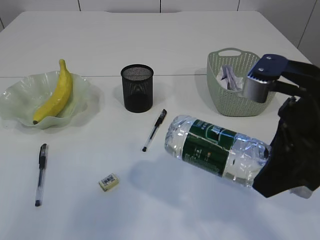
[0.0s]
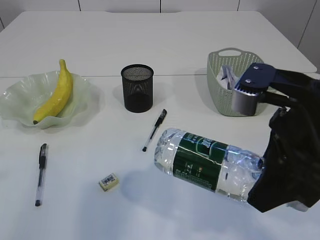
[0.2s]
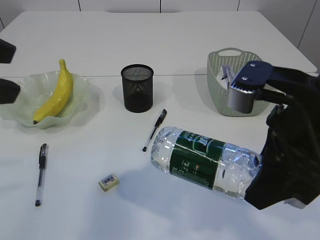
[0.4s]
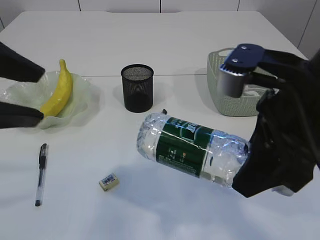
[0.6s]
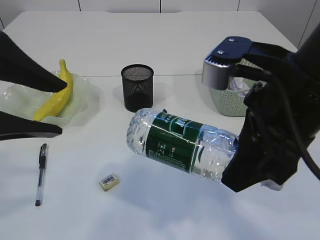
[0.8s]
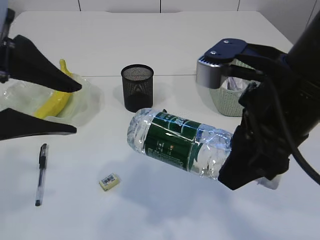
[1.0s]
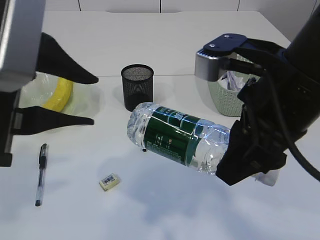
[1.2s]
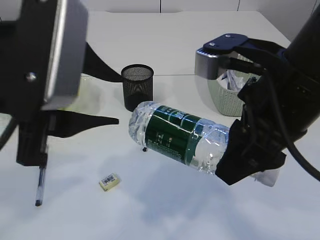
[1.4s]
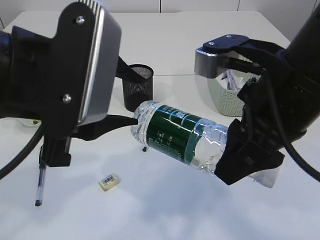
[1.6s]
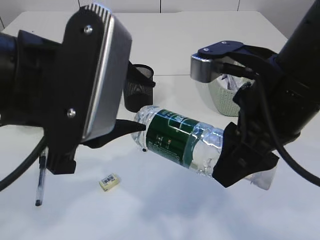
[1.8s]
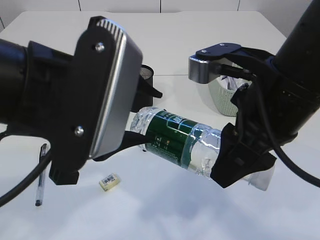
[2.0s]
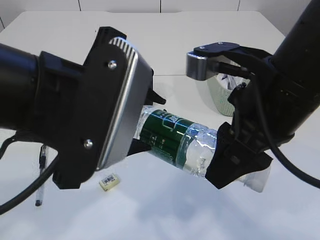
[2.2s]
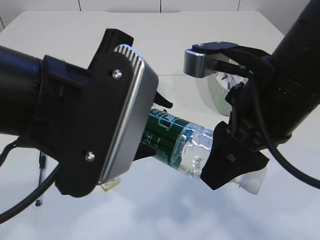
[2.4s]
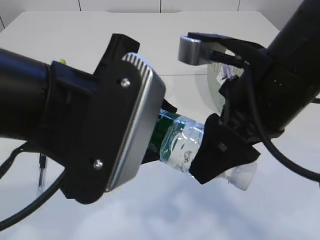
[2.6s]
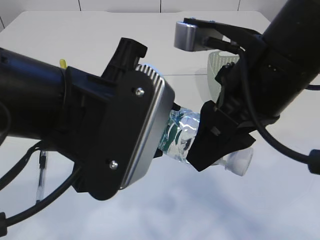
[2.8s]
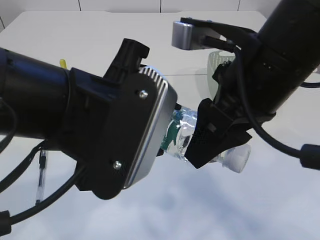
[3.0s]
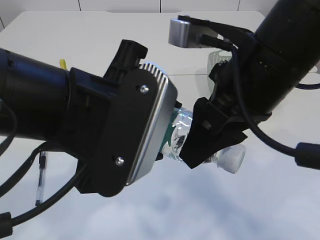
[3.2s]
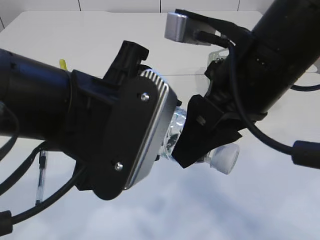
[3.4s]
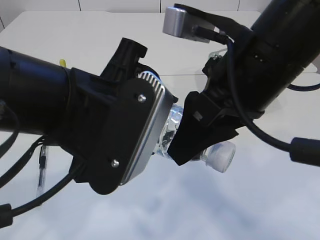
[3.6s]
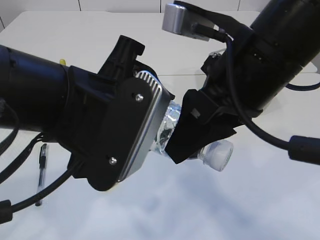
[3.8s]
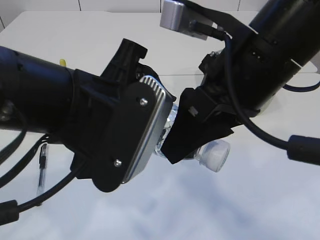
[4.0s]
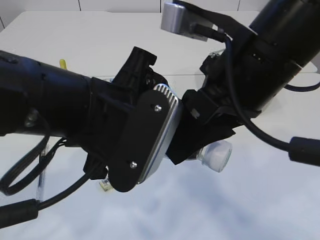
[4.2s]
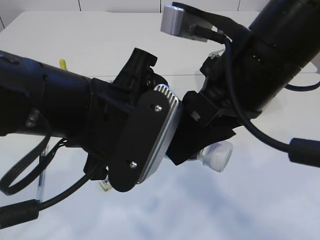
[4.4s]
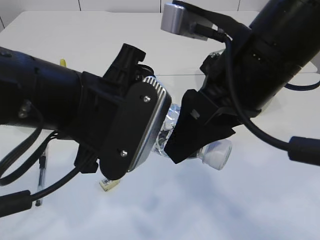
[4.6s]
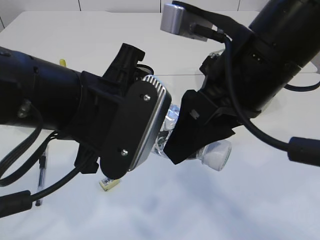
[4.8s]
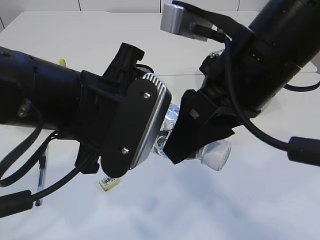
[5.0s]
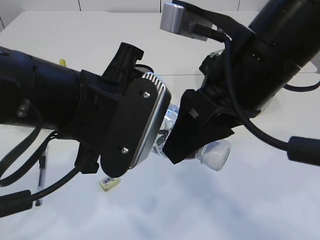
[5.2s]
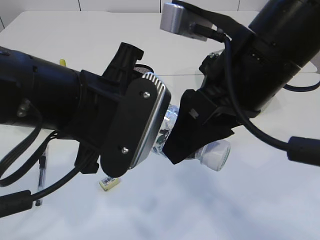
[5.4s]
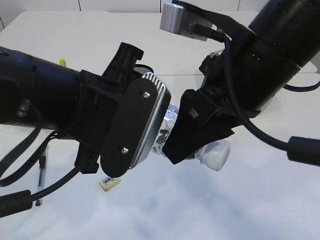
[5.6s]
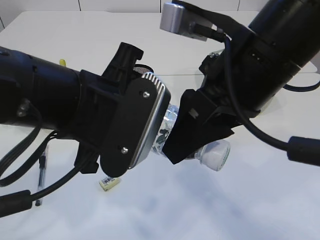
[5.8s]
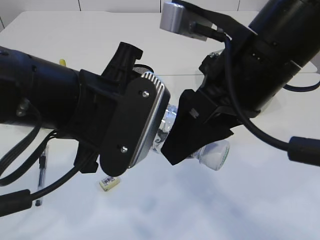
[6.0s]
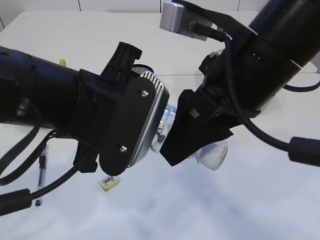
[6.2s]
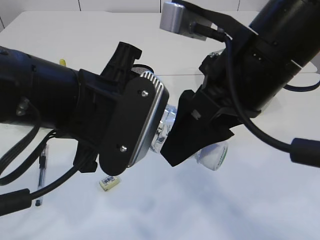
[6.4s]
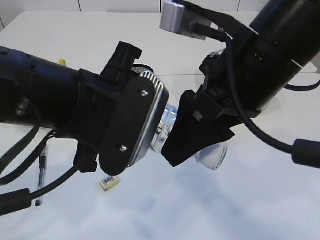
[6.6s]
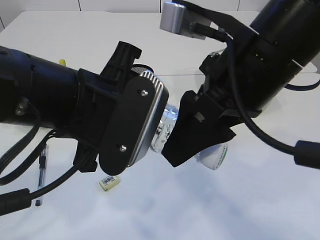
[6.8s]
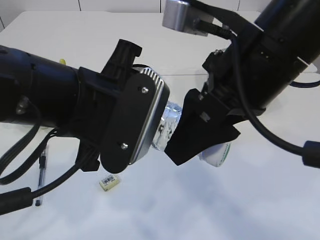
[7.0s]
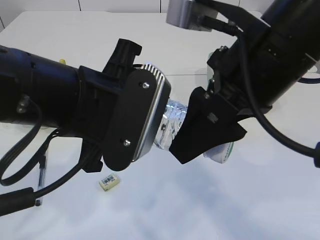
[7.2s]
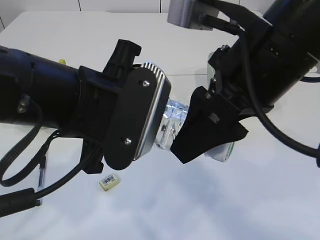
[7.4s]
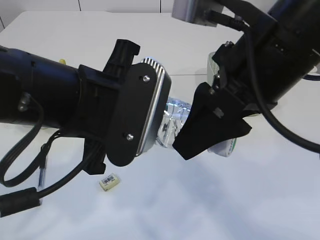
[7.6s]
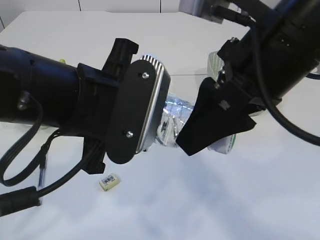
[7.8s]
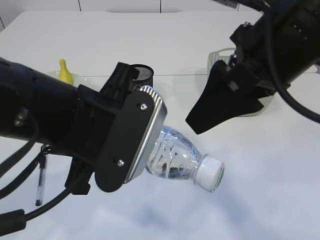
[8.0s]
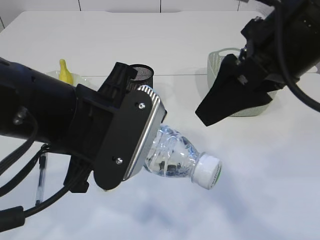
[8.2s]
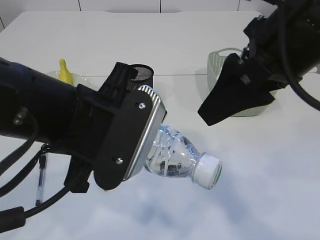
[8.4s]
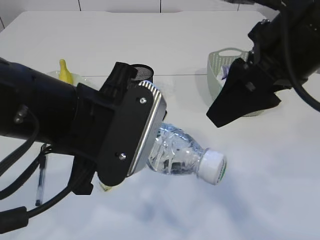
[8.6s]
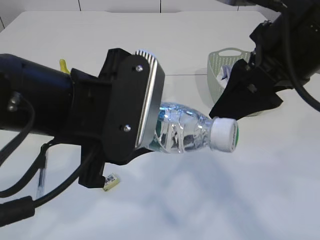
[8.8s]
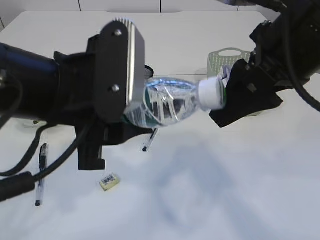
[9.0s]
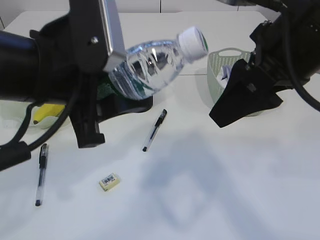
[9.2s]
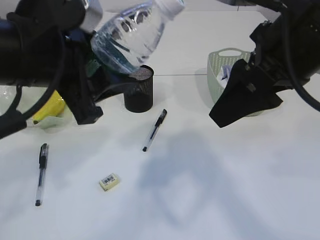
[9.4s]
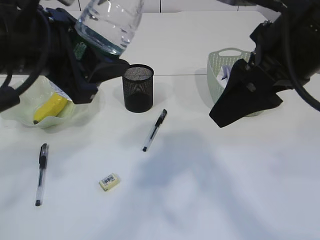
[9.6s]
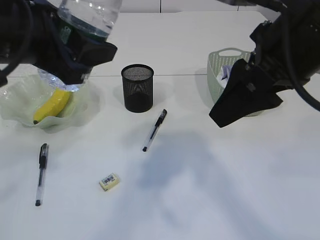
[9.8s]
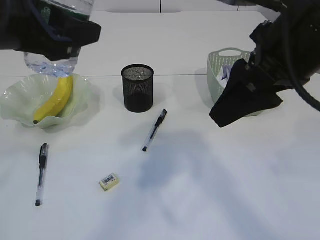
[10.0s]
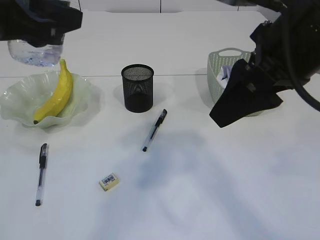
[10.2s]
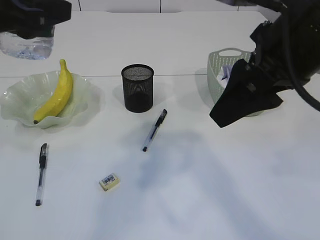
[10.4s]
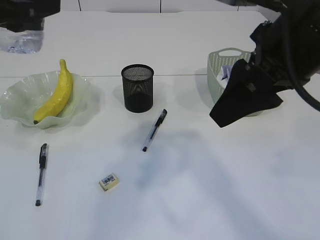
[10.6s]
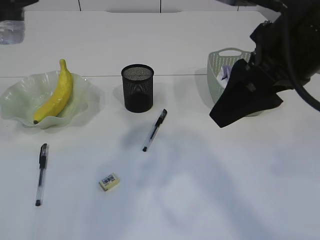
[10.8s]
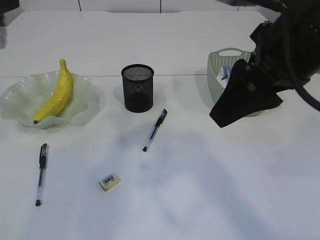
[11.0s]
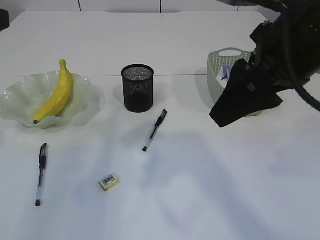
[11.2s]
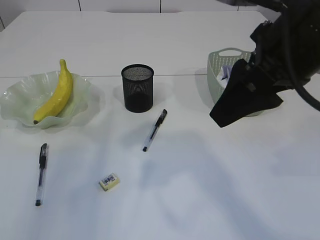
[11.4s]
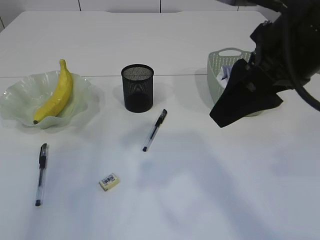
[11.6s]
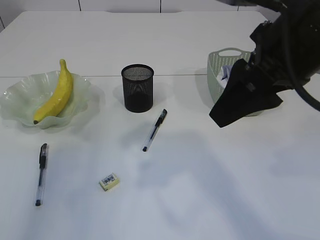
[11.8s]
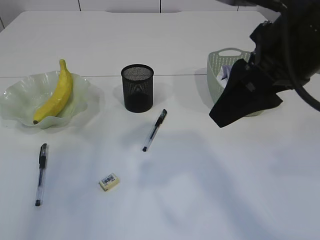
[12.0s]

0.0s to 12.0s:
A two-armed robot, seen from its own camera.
Step, 0.0s to 8.2s: transfer the bottle to the left arm.
0.0s to 1.6s: The left gripper shifts some 15 cm to the right and downward. Meanwhile the right gripper is displaced to the left by roughly 5 cm.
4.4s to 6.0s: Neither gripper changes place.
6.0s to 7.6s: The grippers stay close to where they were, moving slightly.
9.0s to 10.4s: The left gripper heads to the left and upward, covering approximately 15 cm.
10.4s to 12.0s: The left gripper moves to the left, some 10 cm.

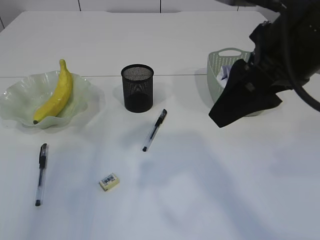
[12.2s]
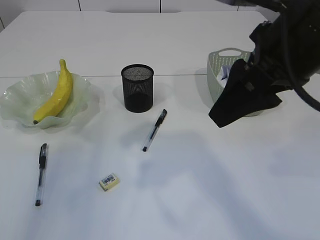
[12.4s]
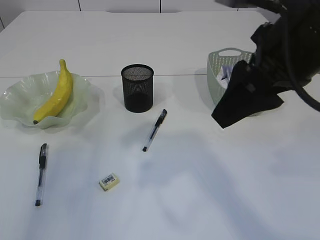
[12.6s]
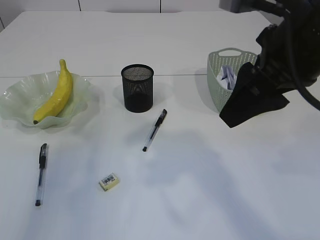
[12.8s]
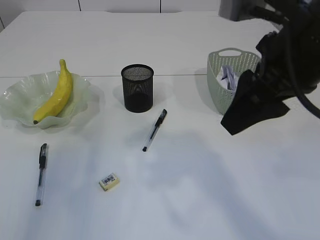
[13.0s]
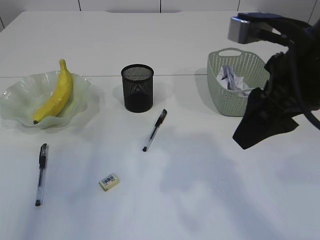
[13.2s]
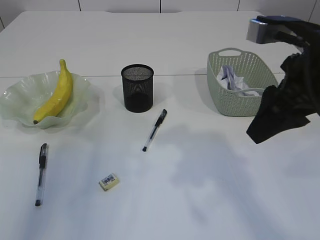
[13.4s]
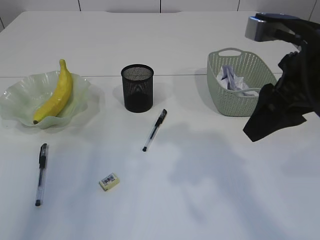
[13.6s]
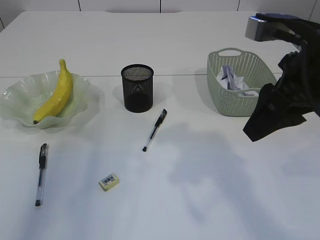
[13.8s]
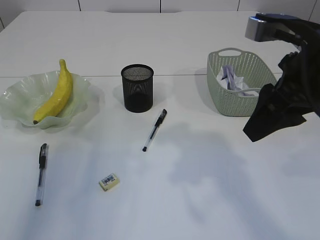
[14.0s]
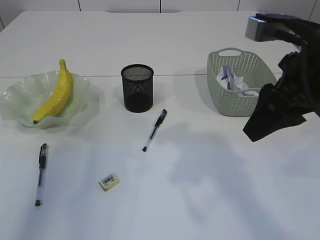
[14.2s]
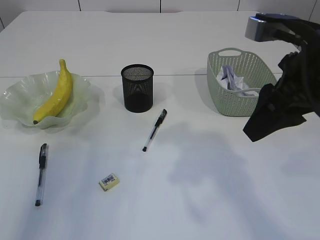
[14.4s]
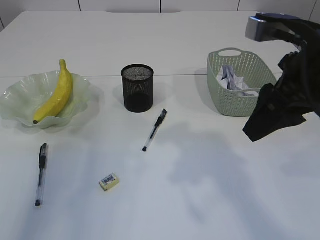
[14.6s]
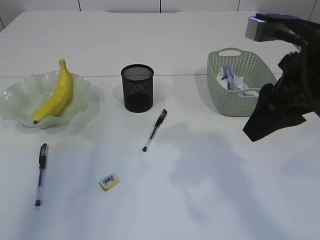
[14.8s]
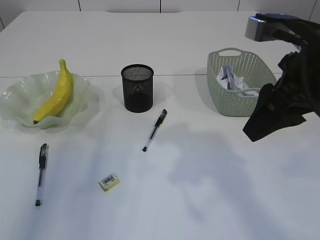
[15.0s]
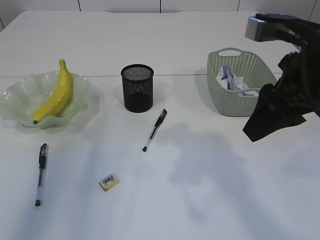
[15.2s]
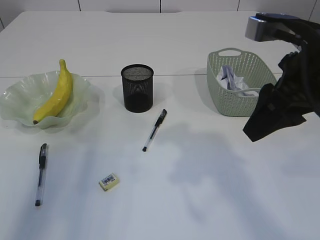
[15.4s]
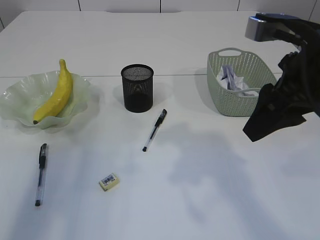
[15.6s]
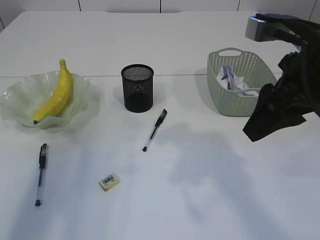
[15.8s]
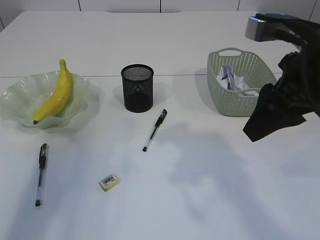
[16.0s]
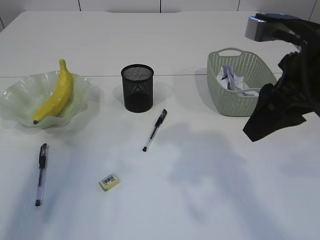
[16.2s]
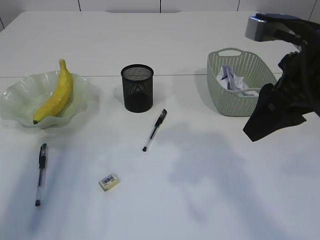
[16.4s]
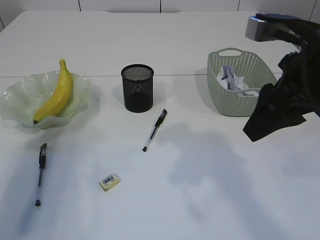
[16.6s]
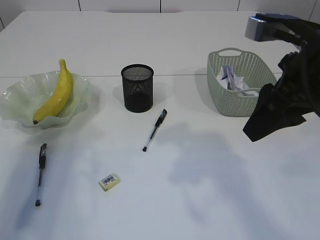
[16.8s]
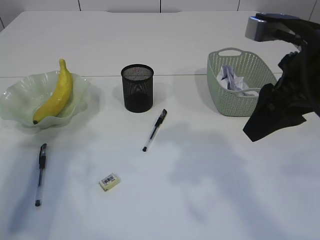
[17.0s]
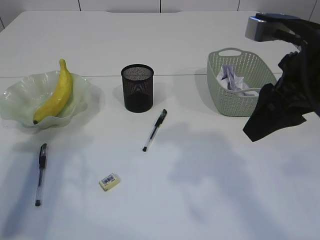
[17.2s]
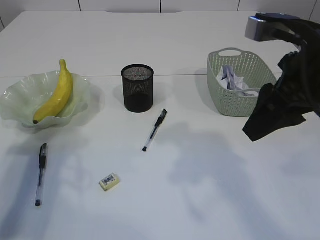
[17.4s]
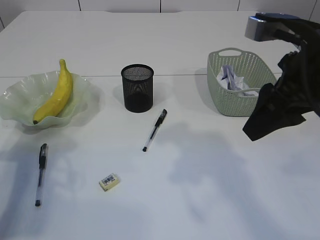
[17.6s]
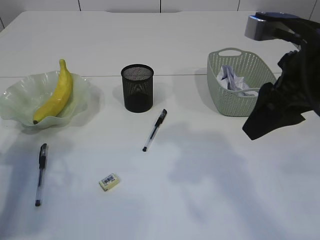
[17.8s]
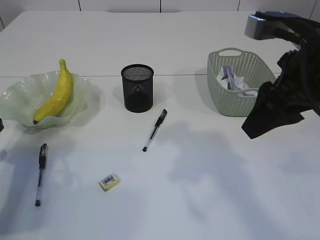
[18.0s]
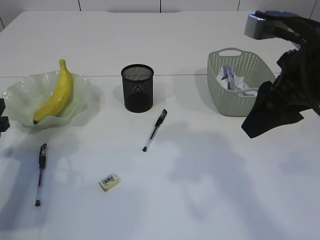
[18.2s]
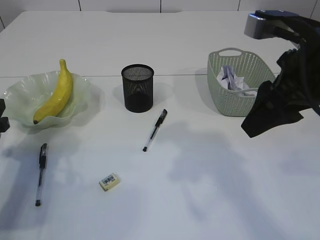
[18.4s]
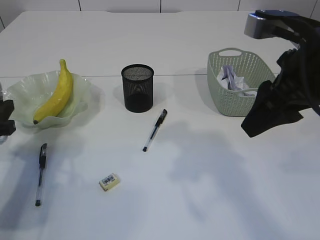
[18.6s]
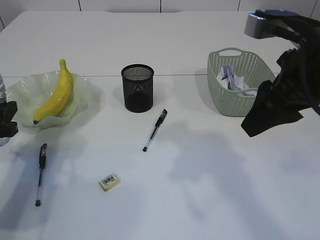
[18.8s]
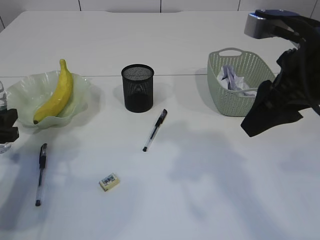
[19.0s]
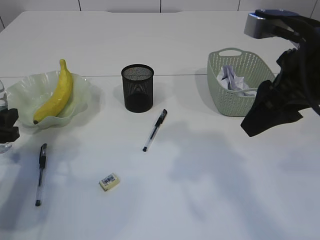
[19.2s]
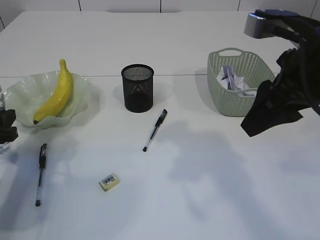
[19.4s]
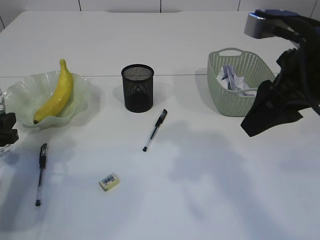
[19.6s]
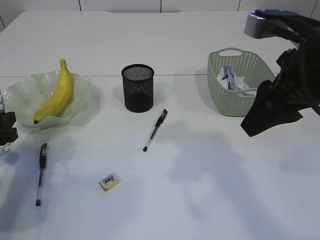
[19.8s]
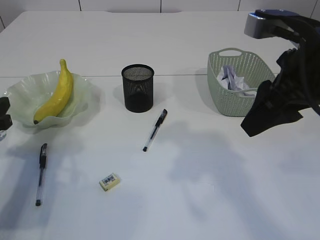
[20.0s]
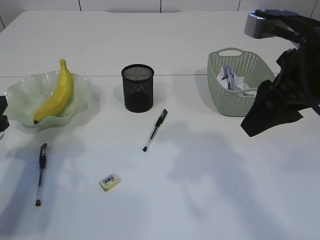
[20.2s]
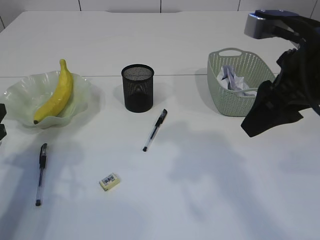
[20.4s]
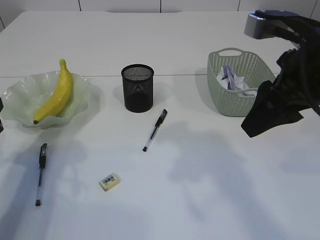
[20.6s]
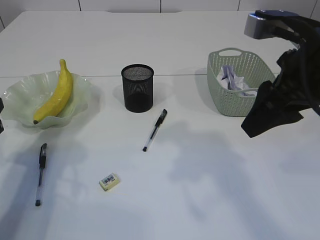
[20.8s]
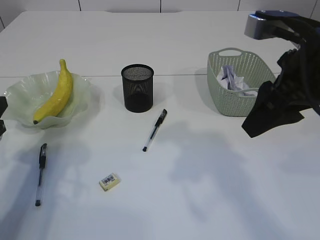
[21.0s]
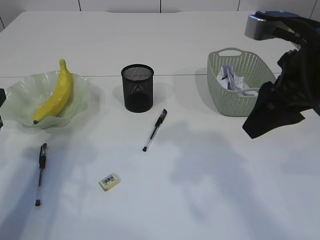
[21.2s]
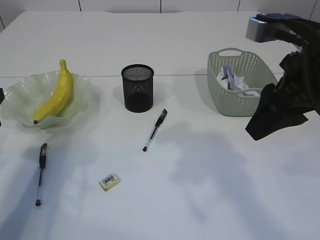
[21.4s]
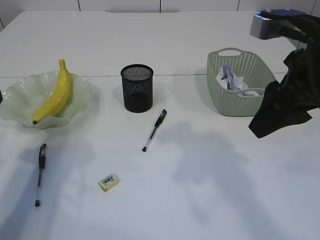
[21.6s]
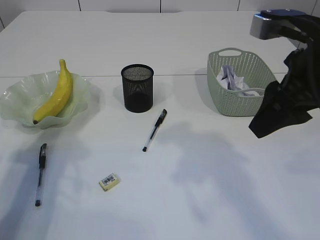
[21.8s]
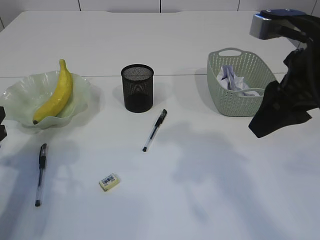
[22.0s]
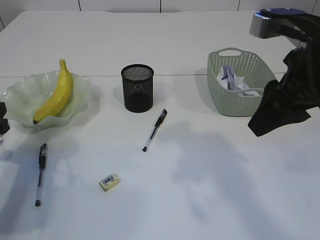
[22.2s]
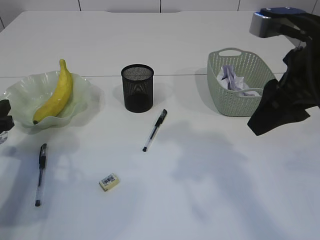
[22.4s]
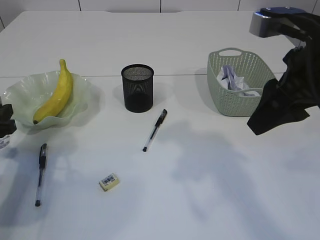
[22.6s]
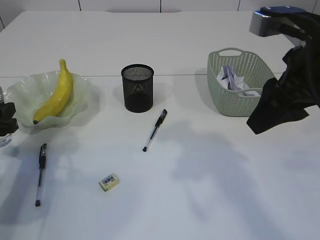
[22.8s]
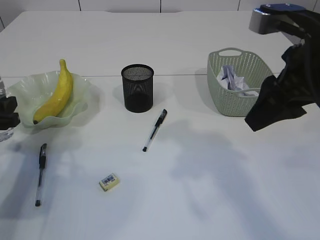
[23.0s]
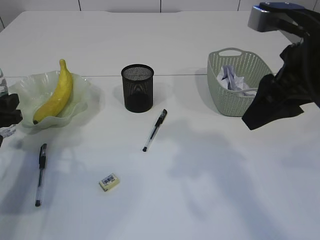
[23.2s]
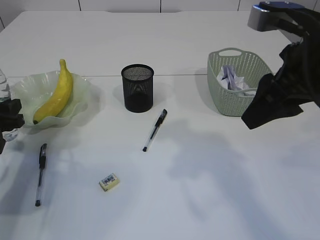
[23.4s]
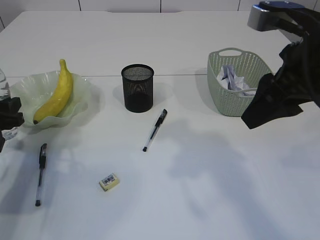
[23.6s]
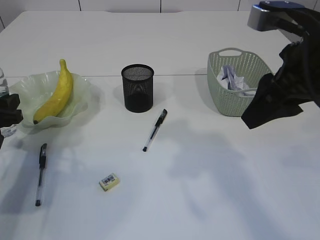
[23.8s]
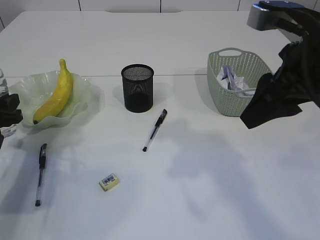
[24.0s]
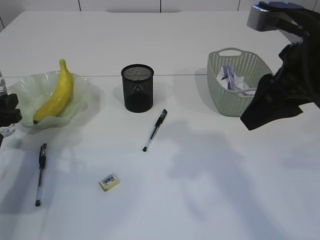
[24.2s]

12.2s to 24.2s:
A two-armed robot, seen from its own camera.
12.2s to 13.8s: The right gripper shifts by about 5 cm.
13.8s to 15.2s: Both grippers stay put.
15.2s to 16.6s: The left gripper is displaced downward by approximately 10 cm.
16.6s to 18.2s: The left gripper shifts some 10 cm downward.
18.2s to 19.8s: The grippers move only a little.
19.8s to 21.2s: The left gripper moves upward, some 5 cm.
21.2s to 22.6s: The left gripper ends up some 5 cm from where it was.
22.6s to 24.2s: The grippers stay close to where they were, moving slightly.
